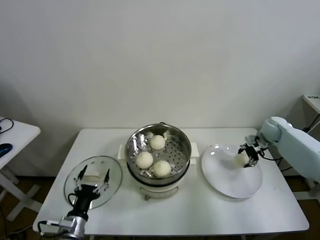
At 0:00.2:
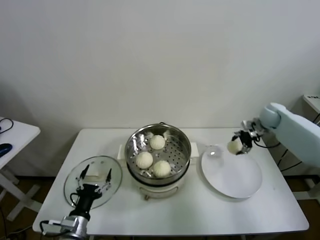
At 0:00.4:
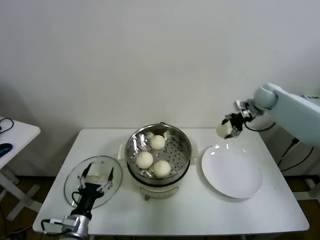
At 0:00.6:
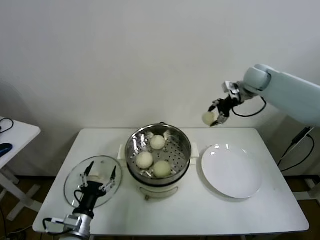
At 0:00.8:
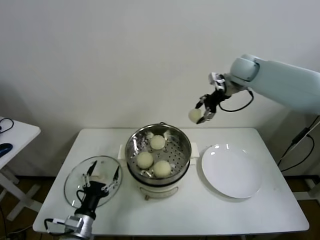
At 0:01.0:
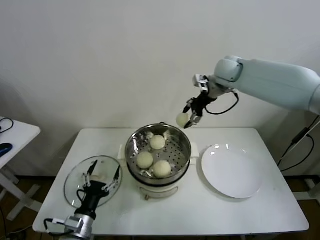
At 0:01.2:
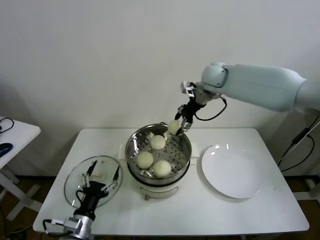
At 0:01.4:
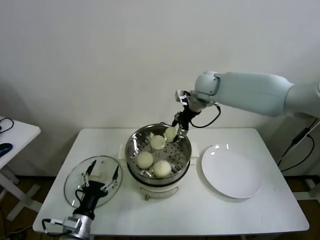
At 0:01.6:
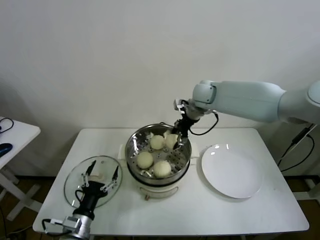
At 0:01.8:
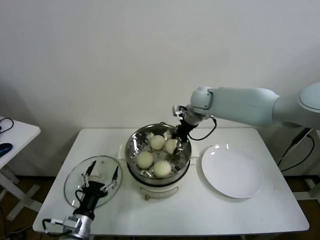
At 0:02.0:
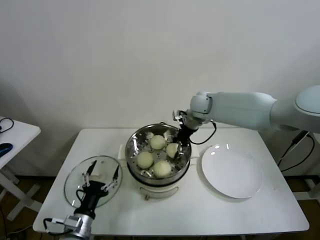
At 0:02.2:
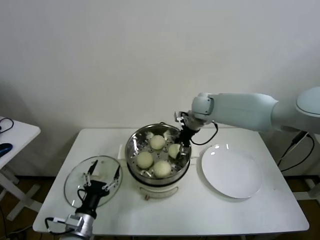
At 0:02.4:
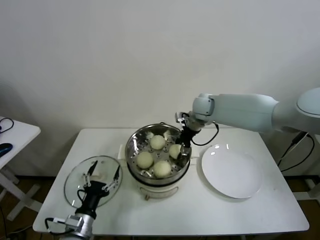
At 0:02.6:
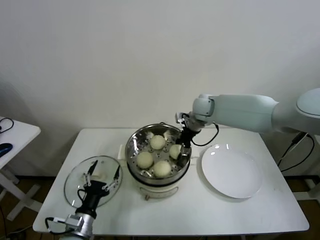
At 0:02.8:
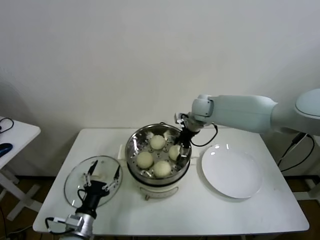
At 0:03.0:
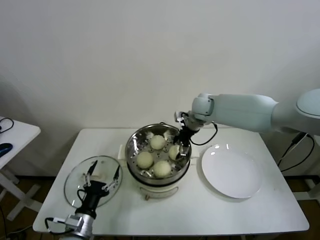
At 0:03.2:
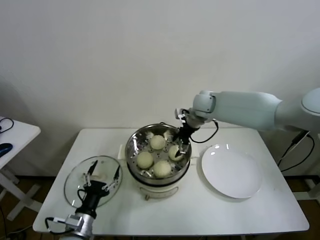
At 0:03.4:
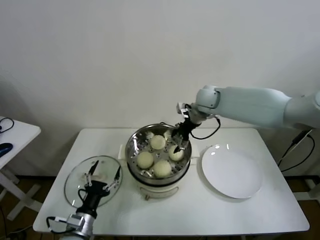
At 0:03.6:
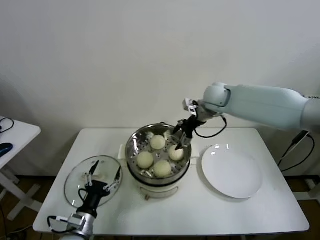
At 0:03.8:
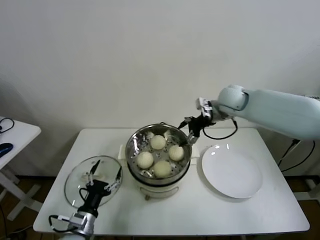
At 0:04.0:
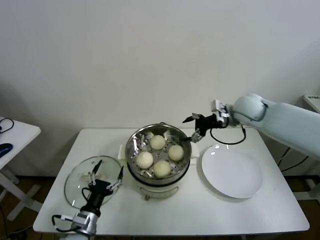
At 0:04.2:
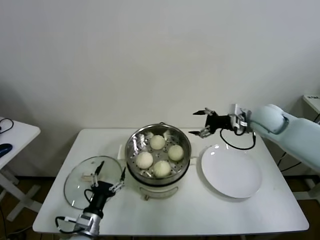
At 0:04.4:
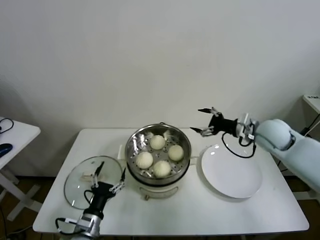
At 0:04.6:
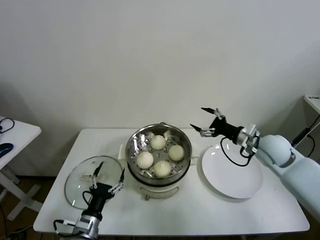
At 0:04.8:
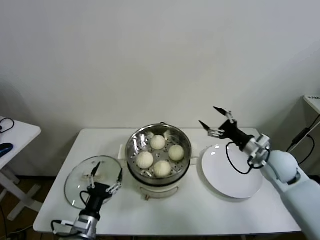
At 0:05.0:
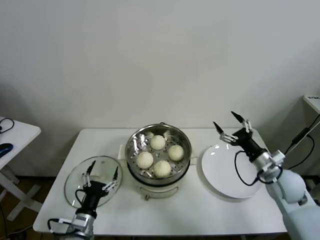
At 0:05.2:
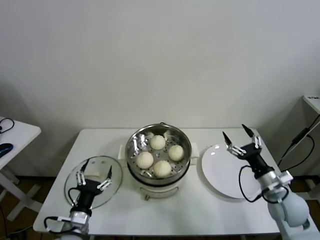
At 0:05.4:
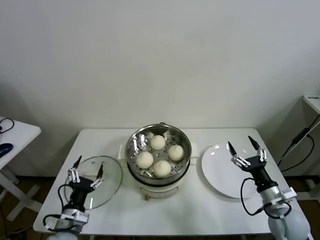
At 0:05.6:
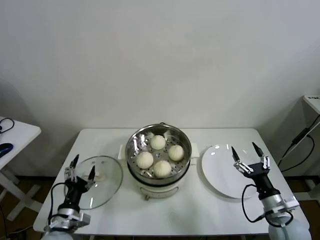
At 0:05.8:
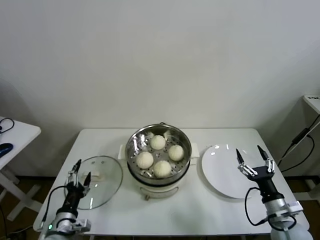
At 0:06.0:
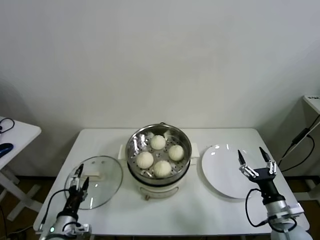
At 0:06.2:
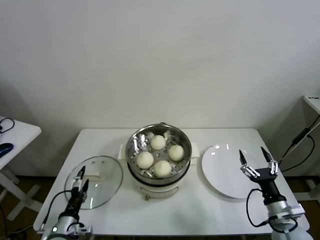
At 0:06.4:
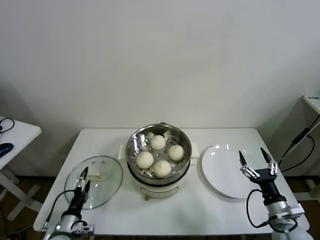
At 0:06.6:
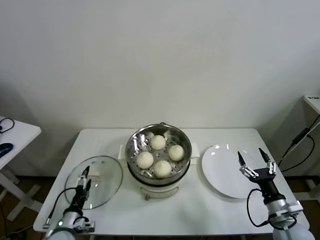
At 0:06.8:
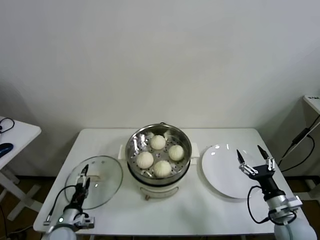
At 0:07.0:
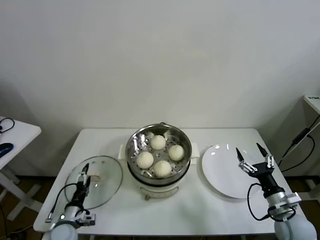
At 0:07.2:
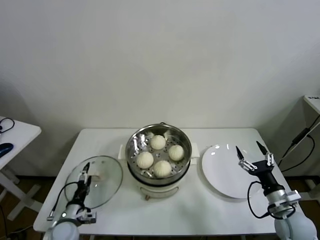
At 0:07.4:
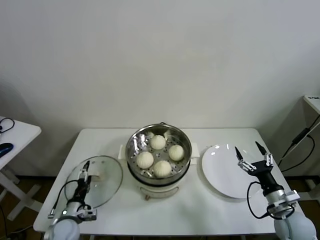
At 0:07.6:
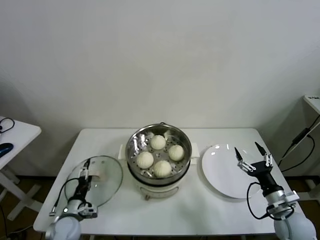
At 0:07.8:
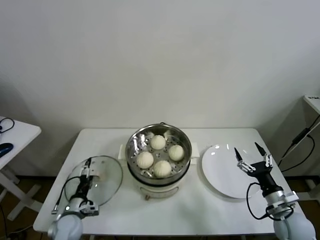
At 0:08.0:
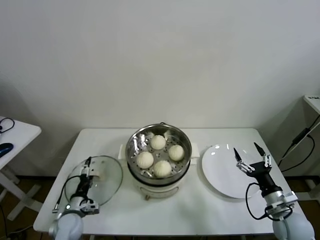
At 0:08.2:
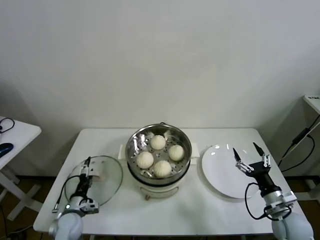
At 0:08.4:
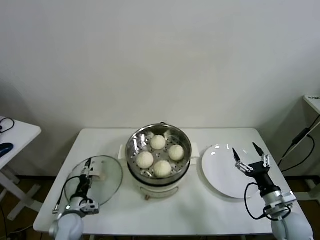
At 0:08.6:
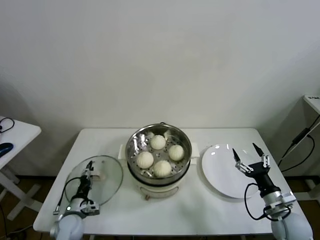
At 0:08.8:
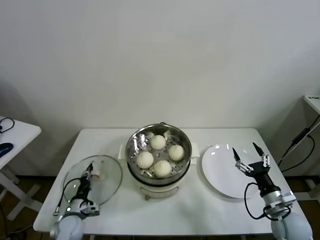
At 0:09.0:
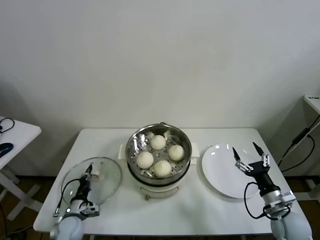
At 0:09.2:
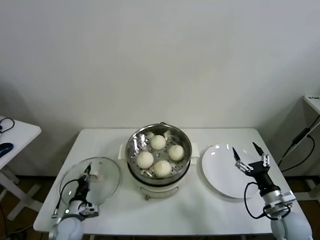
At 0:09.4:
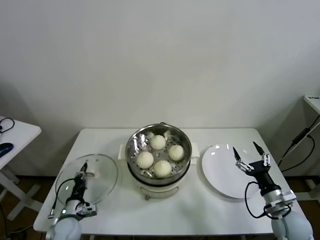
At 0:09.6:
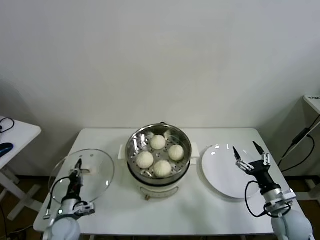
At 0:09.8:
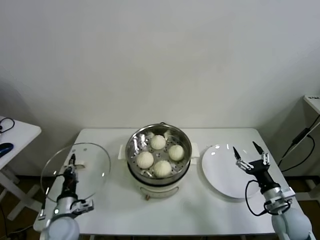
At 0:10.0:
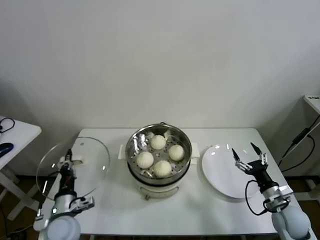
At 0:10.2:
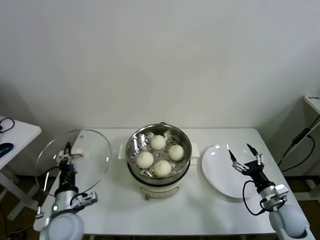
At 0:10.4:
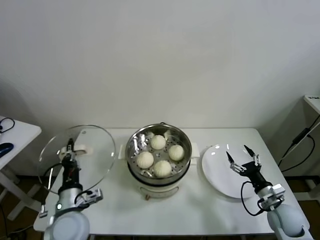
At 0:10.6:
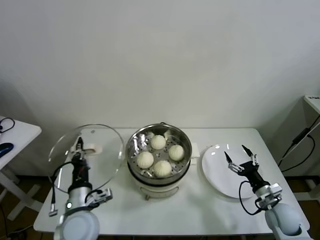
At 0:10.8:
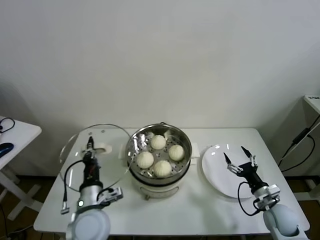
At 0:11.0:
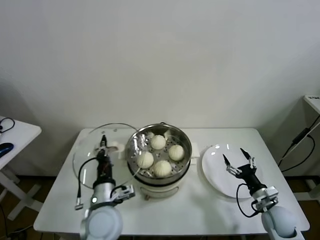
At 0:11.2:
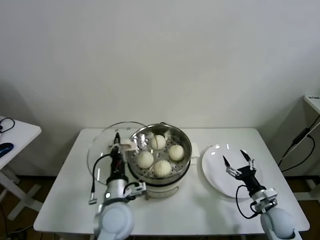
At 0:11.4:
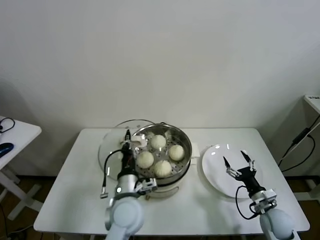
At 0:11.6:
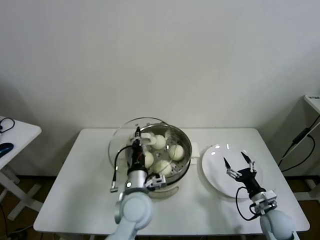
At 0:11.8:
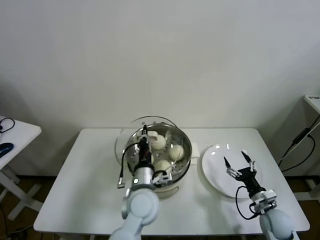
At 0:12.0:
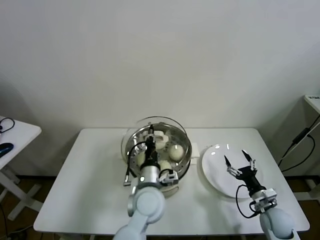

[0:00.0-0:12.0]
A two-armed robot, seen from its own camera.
Task of the whole recording: take steamed baozi put them in steamer.
Step, 0:00.0 to 0:02.8: Place the baozi on the steamer with right gripper.
Step, 0:03.0 to 0:08.8: Grasp the pot lid with left gripper.
0:00.0 to 0:01.6: The right gripper goes roughly 35 cm to the left and upward.
0:01.6 to 0:03.0: The right gripper opens up.
0:03.0 to 0:04.4: The right gripper travels to the right and backward by roughly 25 cm.
0:04.4 to 0:06.0: The left gripper goes about 5 cm to the left; the right gripper travels backward and downward by about 30 cm.
0:06.0 to 0:07.6: The left gripper travels forward and downward by about 10 cm.
0:07.6 to 0:09.0: The left gripper closes its fingers.
0:09.0 to 0:10.4: The left gripper is displaced upward and to the right by about 20 cm.
0:10.4 to 0:12.0: The left gripper shifts roughly 20 cm to the right.

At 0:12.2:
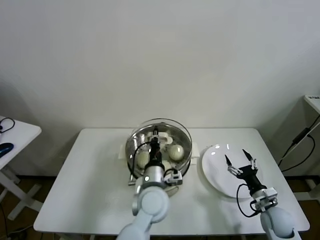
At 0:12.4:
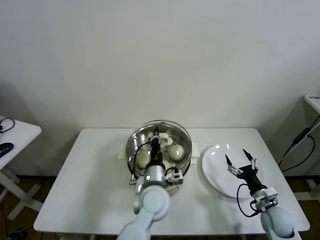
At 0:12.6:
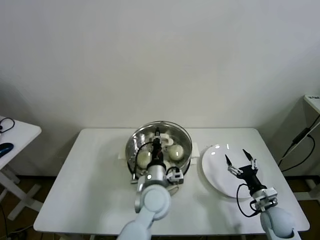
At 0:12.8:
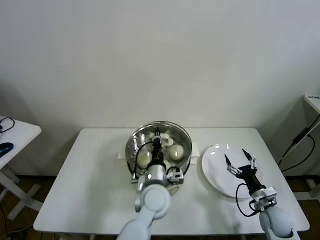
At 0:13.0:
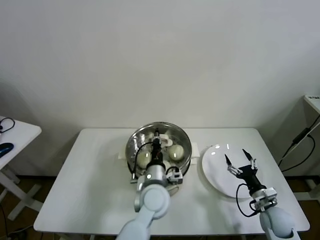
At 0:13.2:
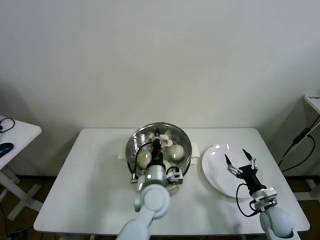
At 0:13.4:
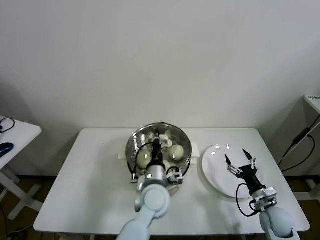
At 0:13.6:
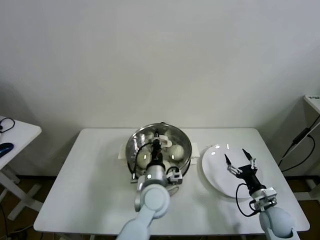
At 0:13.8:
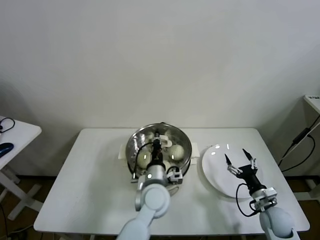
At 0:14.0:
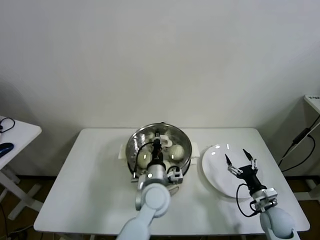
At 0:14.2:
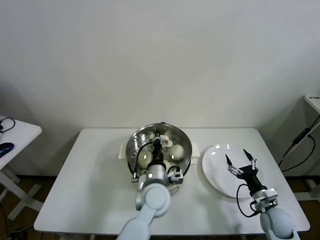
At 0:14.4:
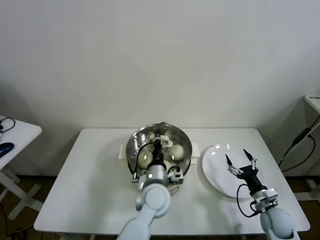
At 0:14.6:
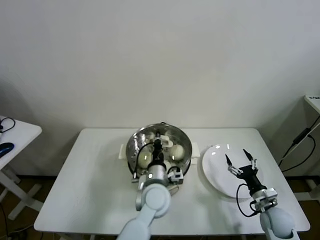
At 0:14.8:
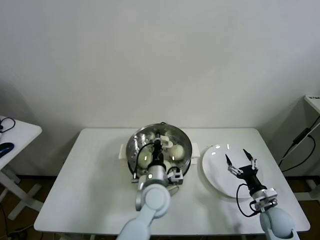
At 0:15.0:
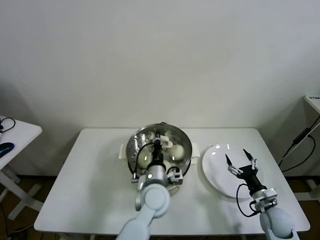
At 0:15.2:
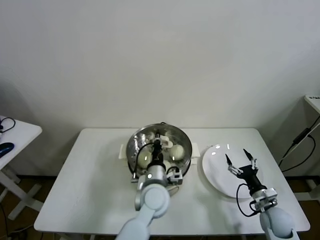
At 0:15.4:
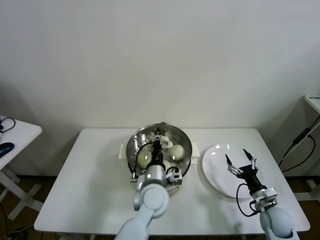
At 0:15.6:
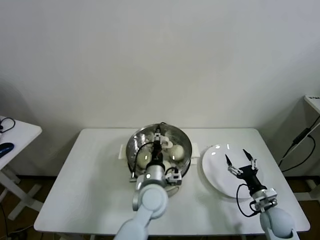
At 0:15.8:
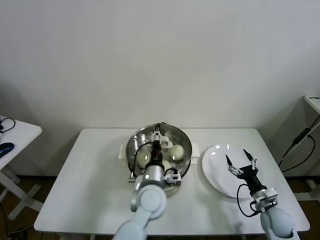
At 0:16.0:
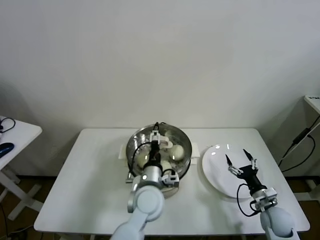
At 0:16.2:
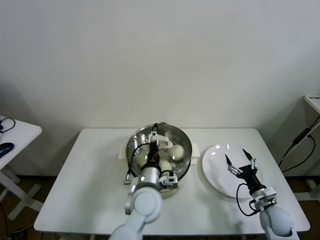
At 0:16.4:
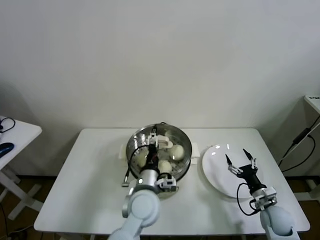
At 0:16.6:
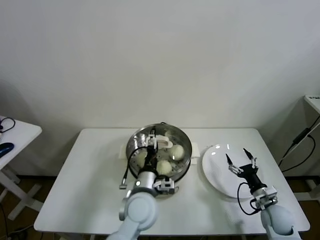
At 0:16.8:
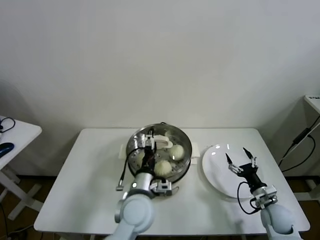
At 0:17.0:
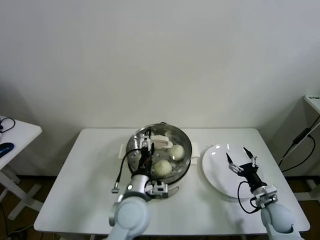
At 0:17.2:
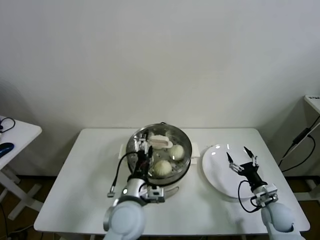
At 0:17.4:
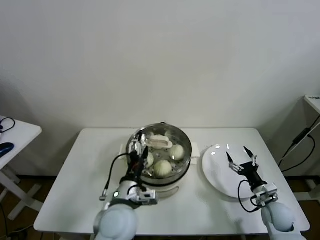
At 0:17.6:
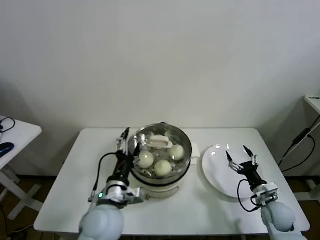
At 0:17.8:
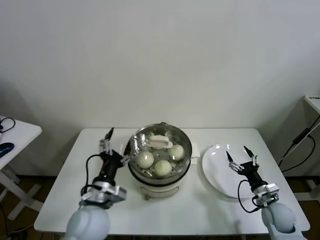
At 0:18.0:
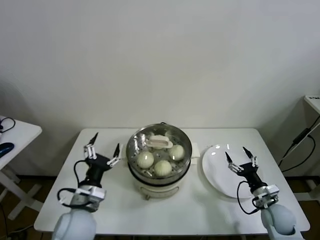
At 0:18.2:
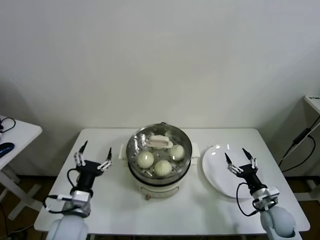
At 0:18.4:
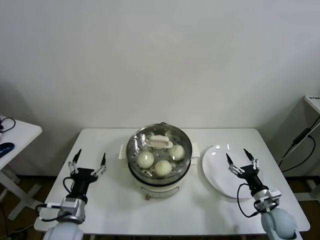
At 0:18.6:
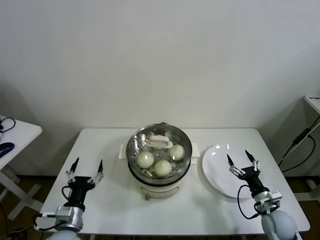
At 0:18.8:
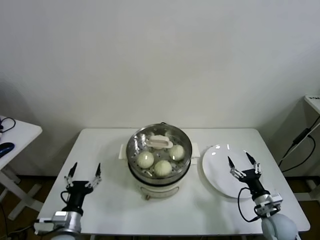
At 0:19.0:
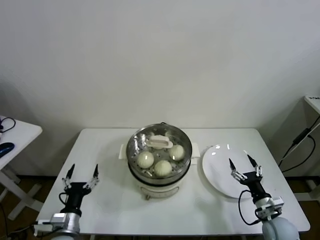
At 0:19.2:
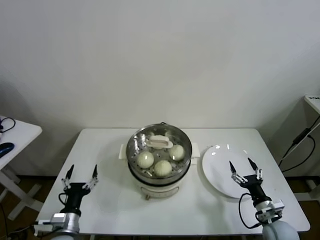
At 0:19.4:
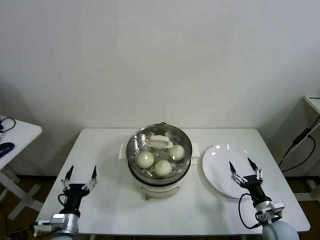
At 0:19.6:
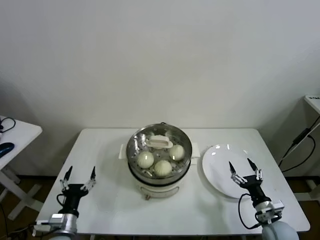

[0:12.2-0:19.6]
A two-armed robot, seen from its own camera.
Task of the whole recording: take steamed baozi put them in steamer.
Step, 0:12.2 to 0:15.8: Place the pot lid on the steamer with left gripper.
0:12.2 to 0:13.6: The grippers make only small movements.
0:13.6 to 0:15.2: The two grippers keep their place.
0:15.2 to 0:16.6: The left gripper ends up approximately 5 cm from where it was, and opens up.
0:16.6 to 0:18.2: The left gripper travels to the left by about 20 cm.
0:18.2 to 0:19.6: The left gripper travels downward and to the left by approximately 15 cm.
